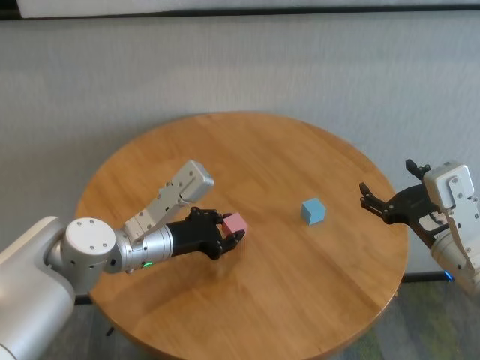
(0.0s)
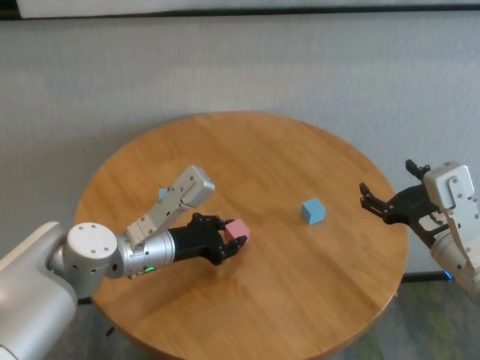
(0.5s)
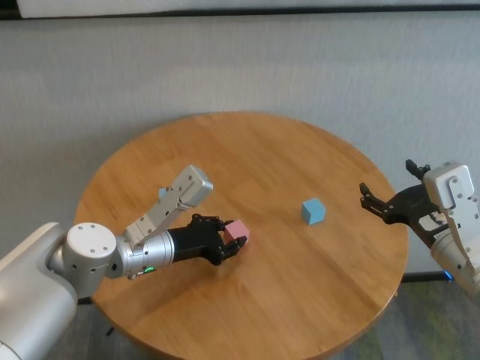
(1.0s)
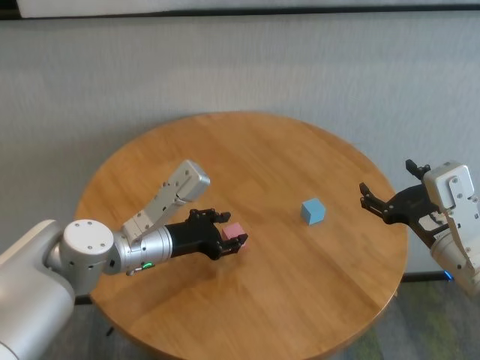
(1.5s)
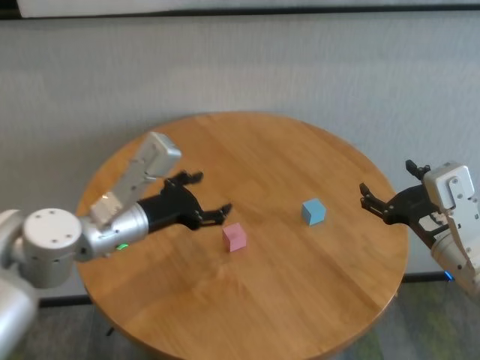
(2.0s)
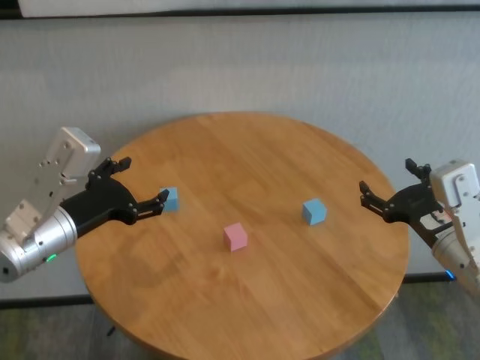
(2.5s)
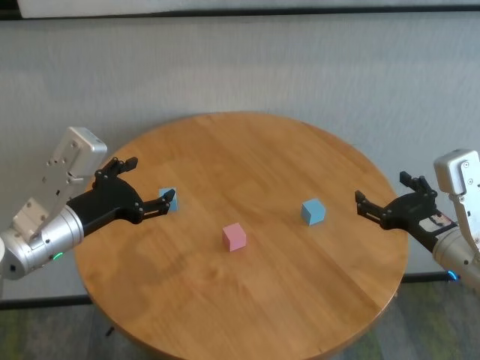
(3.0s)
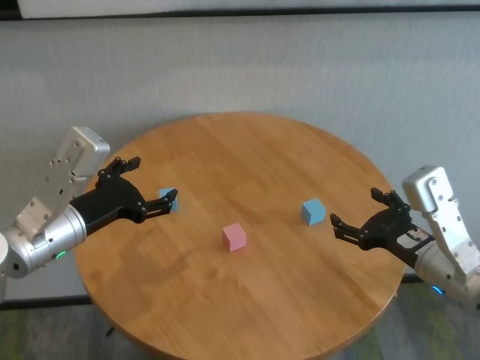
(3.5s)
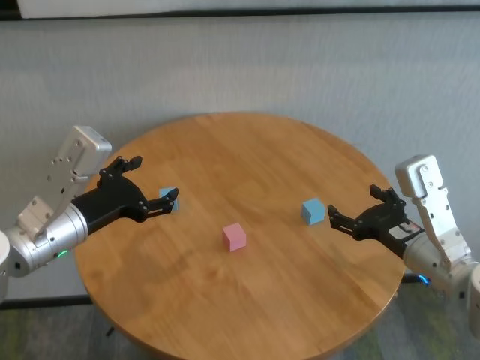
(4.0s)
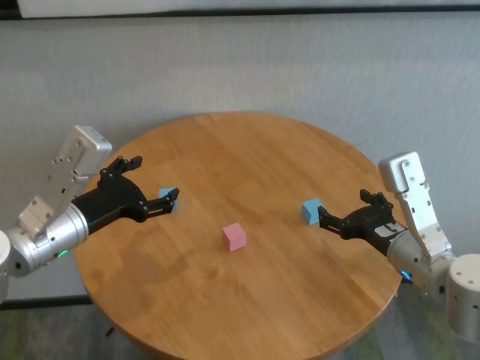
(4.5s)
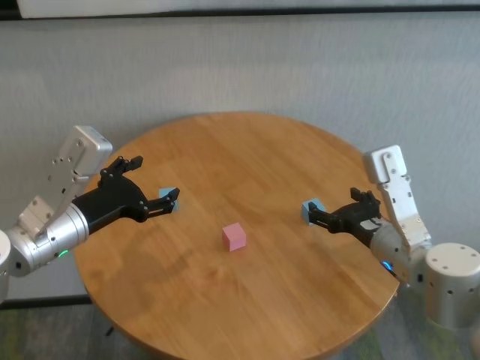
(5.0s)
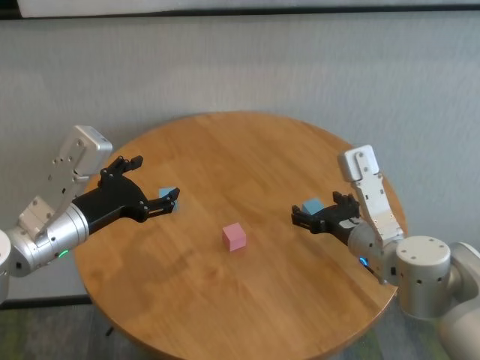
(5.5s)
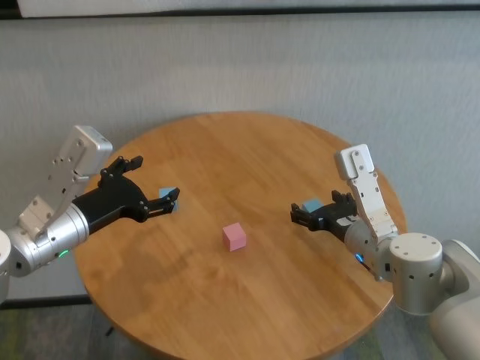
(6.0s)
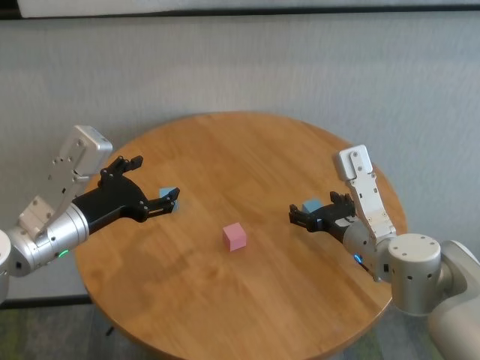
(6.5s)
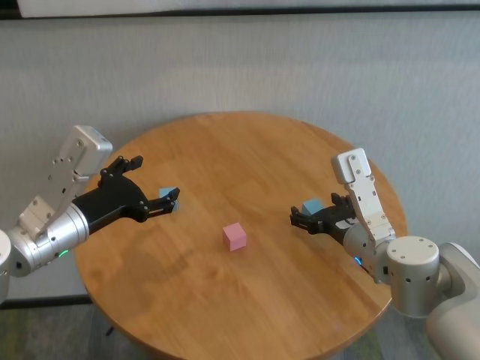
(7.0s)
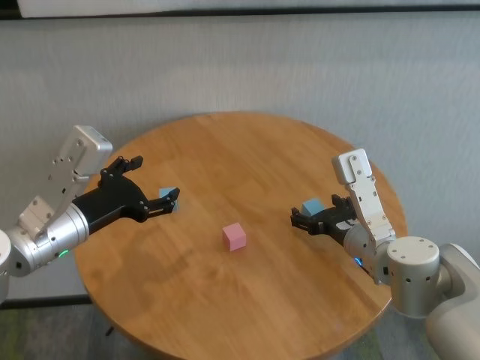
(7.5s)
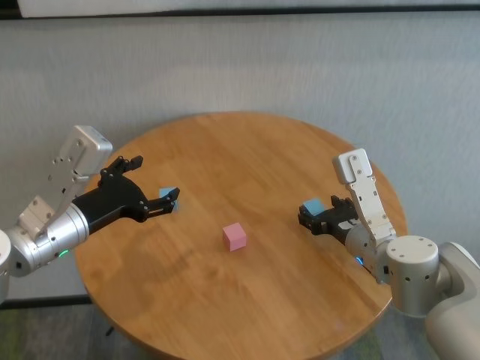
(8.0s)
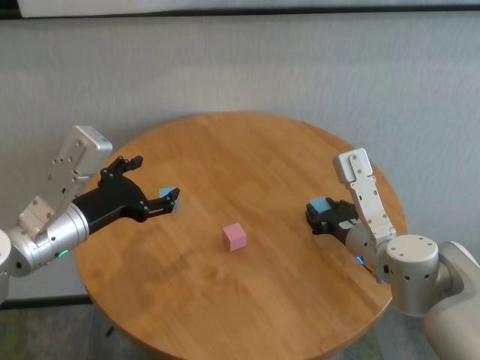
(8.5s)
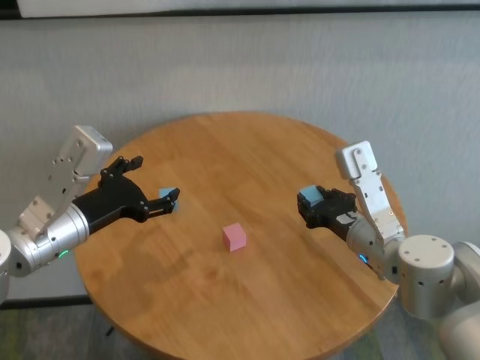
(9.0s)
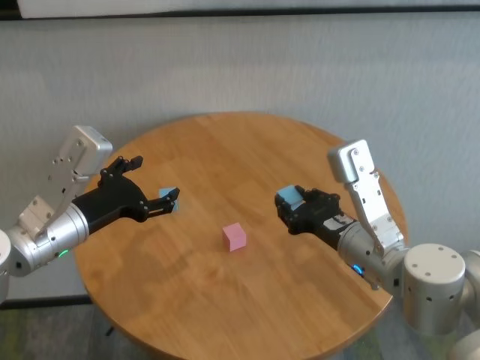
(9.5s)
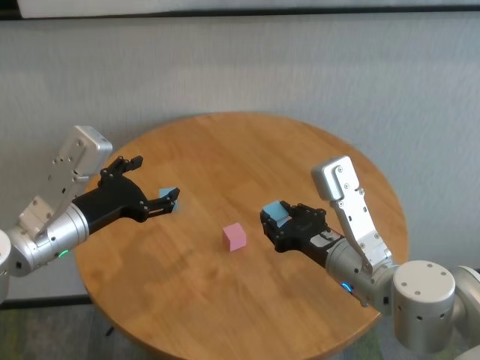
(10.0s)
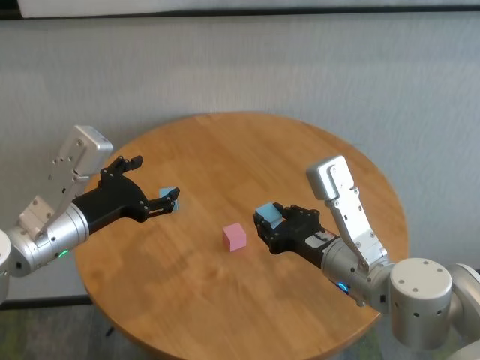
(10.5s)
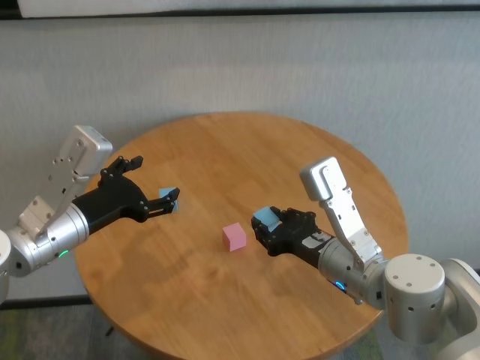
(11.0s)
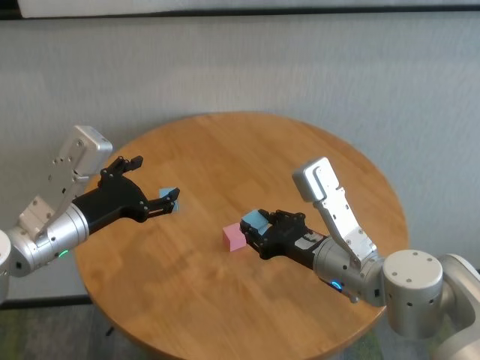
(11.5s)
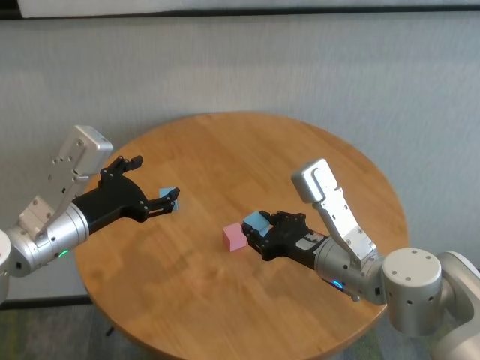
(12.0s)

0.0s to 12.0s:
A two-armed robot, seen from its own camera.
Task of the whole recording: stack building blocks on the table.
Step, 2.0s to 8.0s: Grasp the blue building block with right gripper.

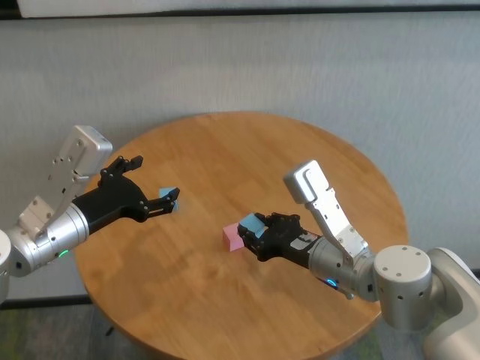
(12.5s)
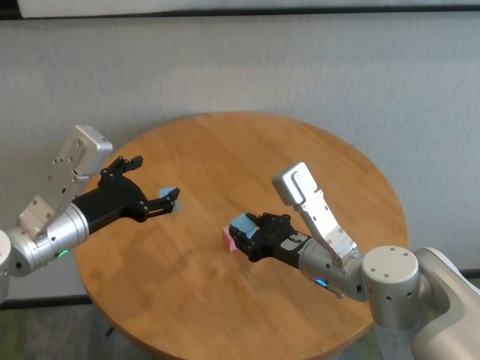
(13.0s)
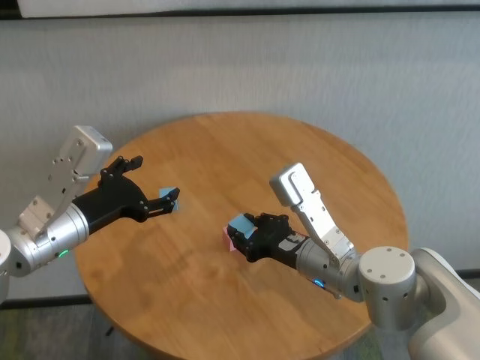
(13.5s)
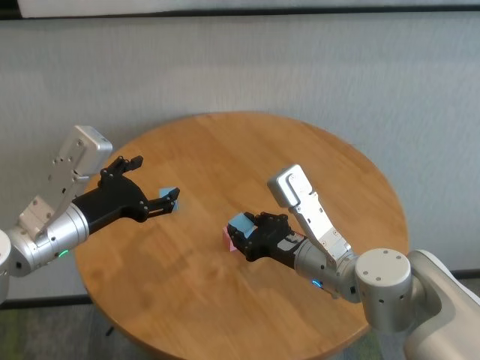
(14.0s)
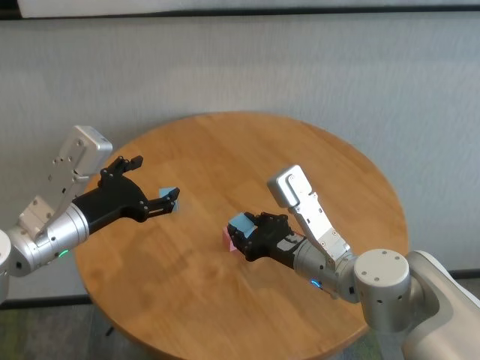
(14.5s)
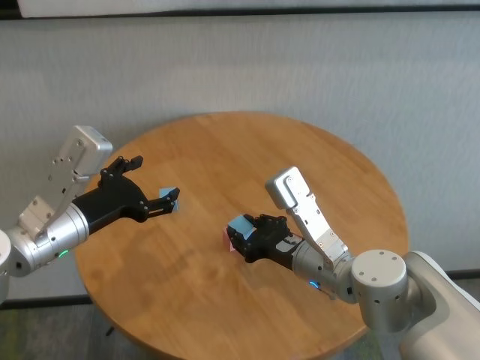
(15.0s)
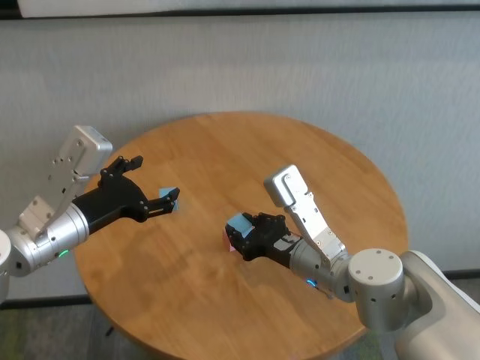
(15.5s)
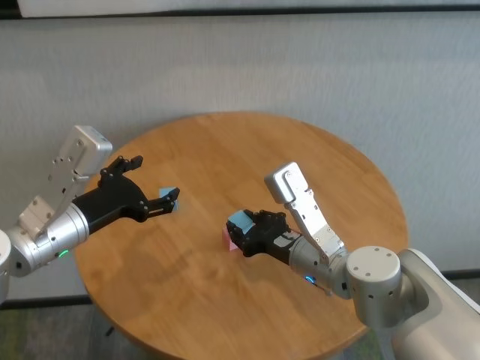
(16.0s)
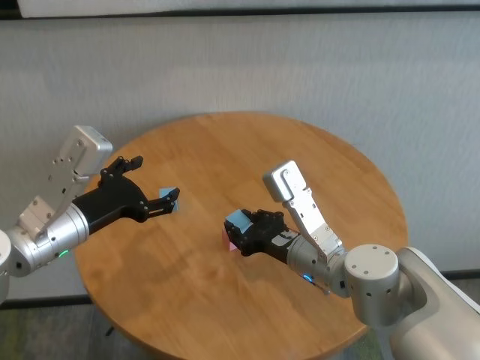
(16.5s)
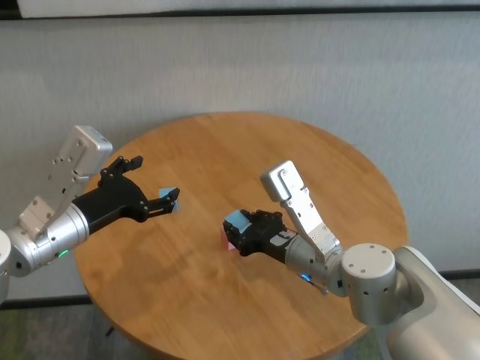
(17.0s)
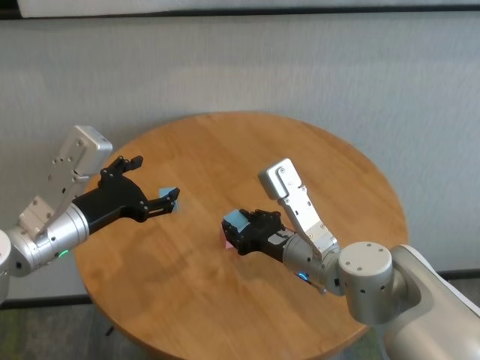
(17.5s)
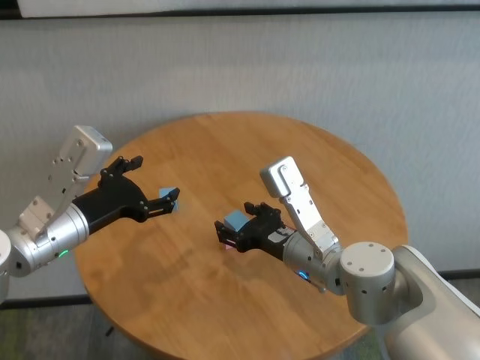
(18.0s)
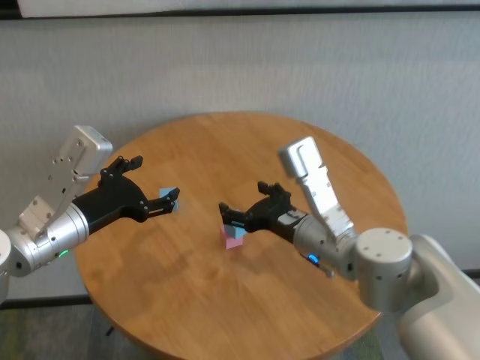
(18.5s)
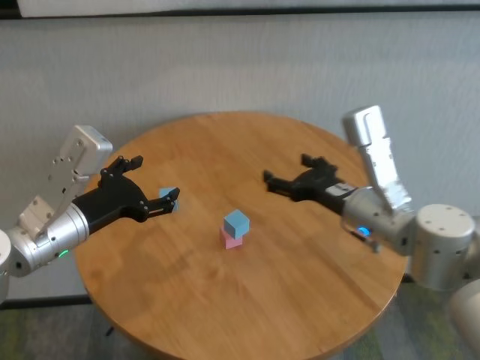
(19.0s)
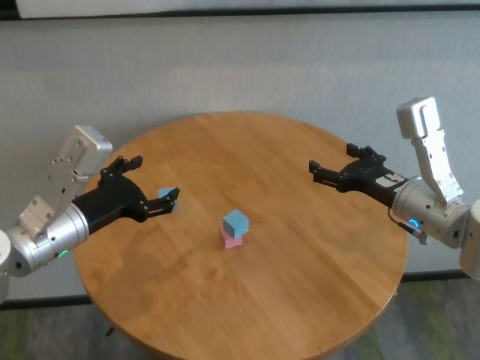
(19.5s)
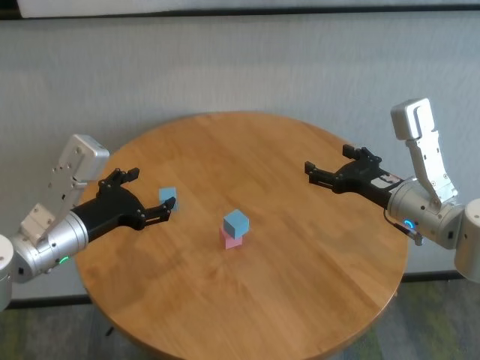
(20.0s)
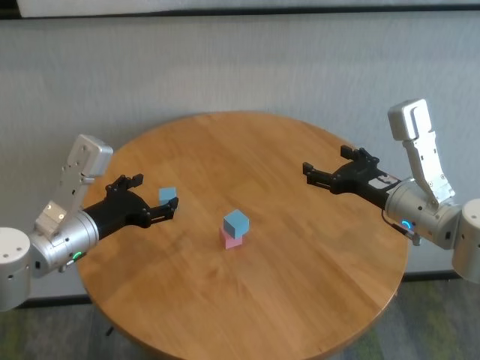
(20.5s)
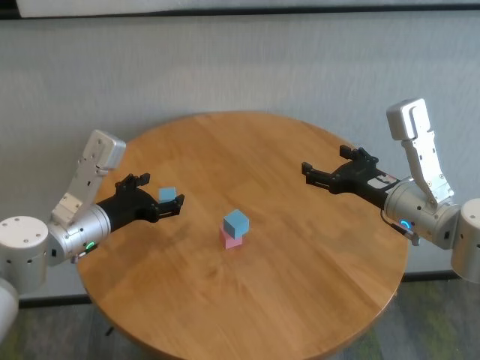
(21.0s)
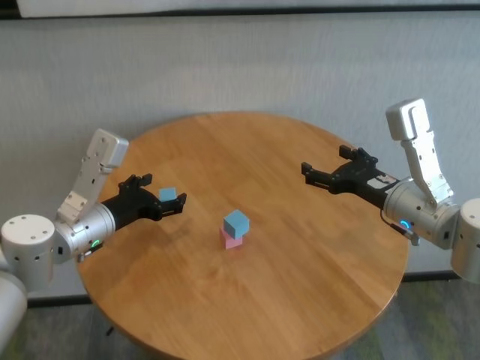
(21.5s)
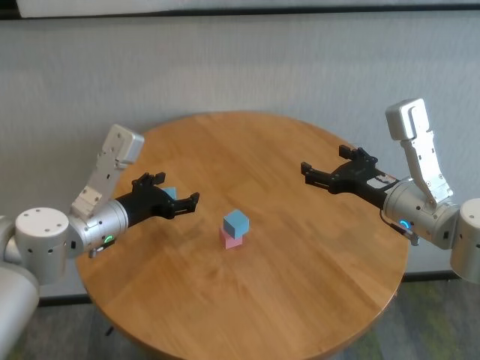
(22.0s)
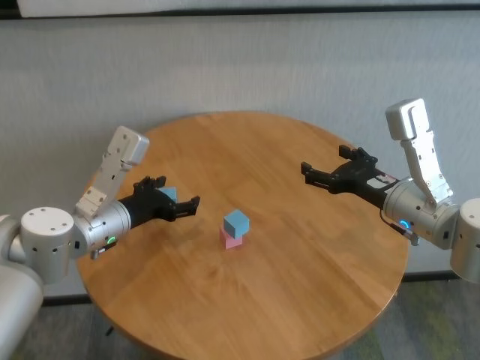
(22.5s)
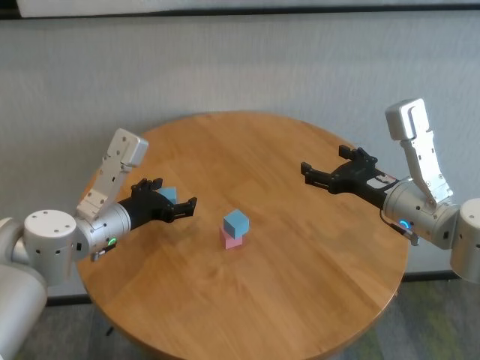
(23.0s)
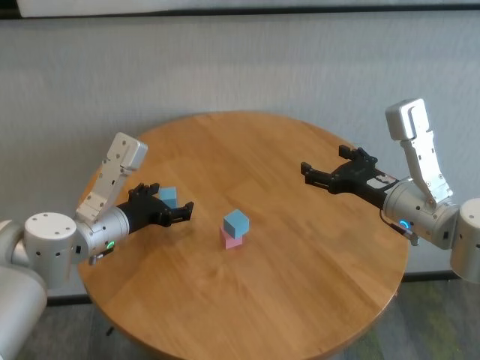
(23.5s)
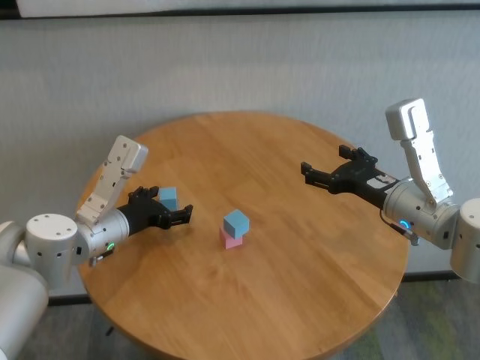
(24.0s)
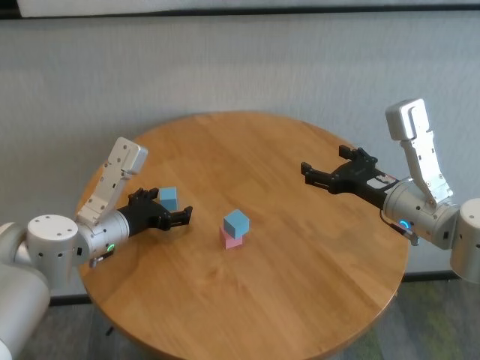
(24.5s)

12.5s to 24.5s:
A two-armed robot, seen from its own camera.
Task of the whole recording: stack building blocks on the table.
Step, 12.5s to 17.5s: Place the blue building block on the pink building blocks with right gripper.

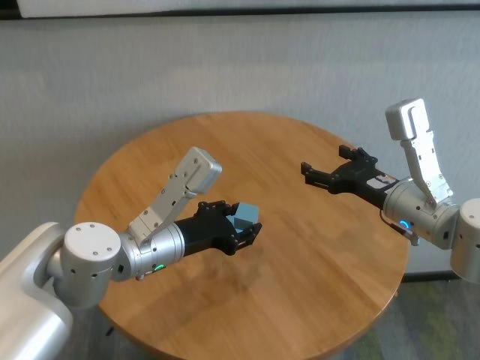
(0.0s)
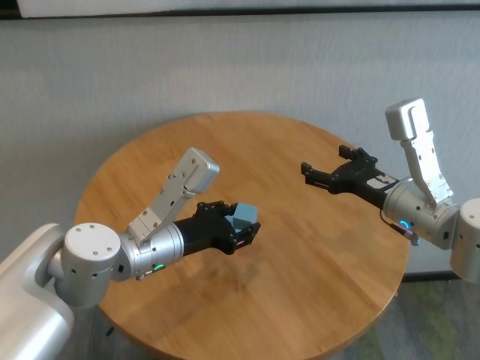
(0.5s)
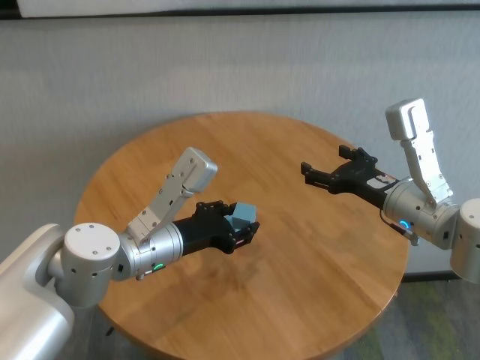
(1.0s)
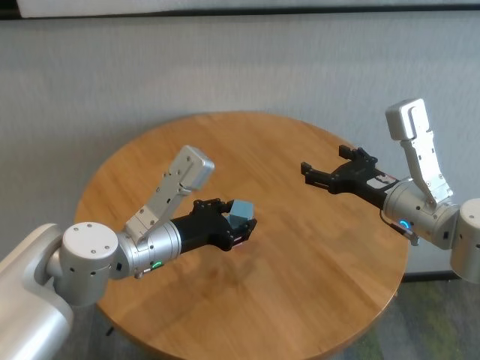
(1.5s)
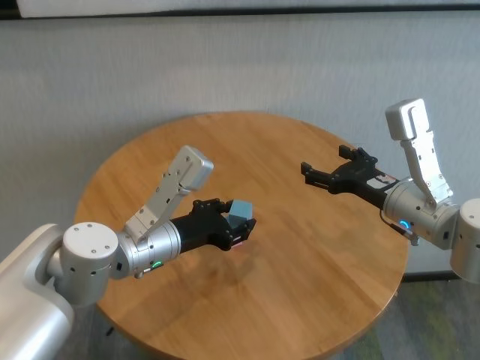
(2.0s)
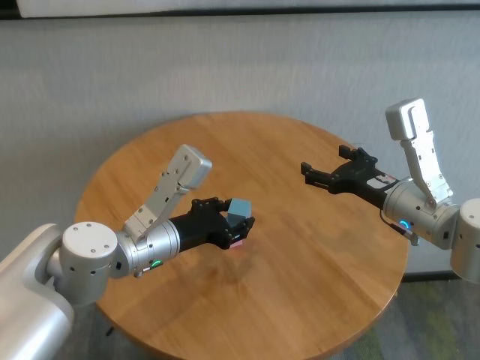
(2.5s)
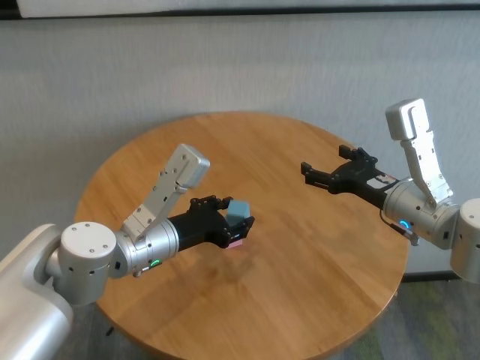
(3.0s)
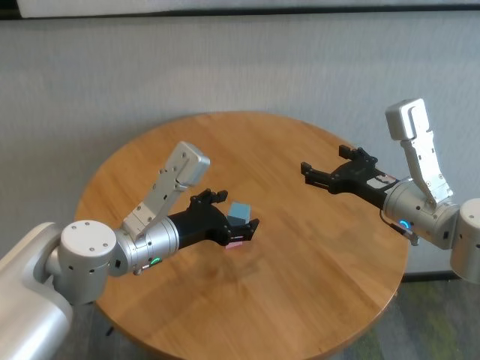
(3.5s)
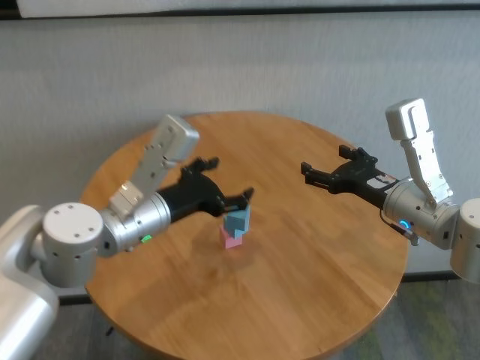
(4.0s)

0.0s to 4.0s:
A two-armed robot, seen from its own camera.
Task of the whole recording: stack building blocks on the table.
Step, 0.0s to 3.0s: Place the blue building block on the blue building blocks with left gripper.
